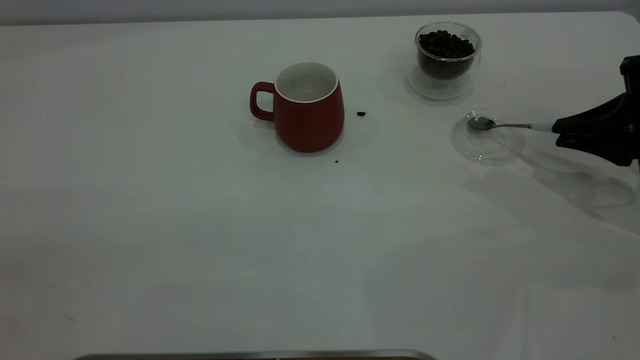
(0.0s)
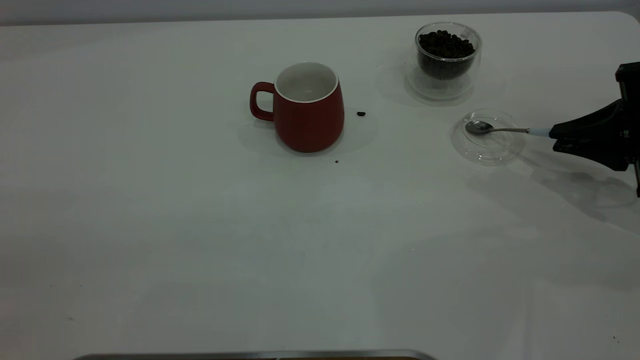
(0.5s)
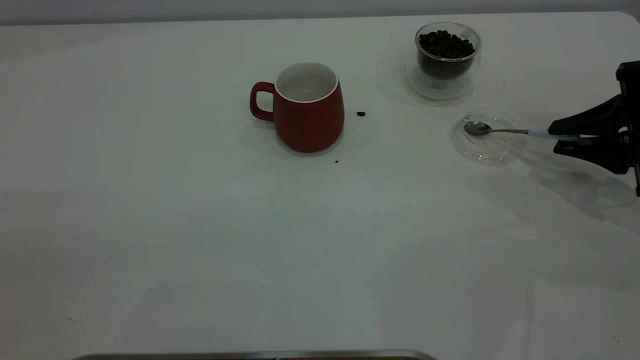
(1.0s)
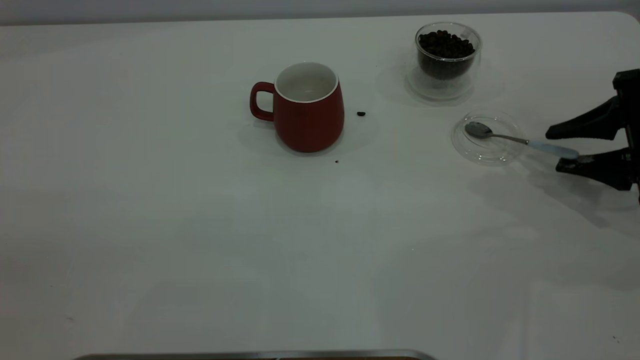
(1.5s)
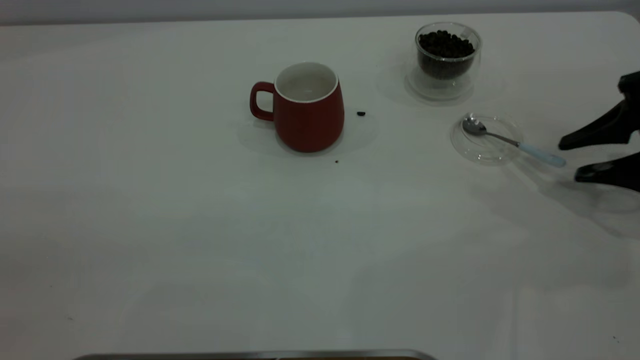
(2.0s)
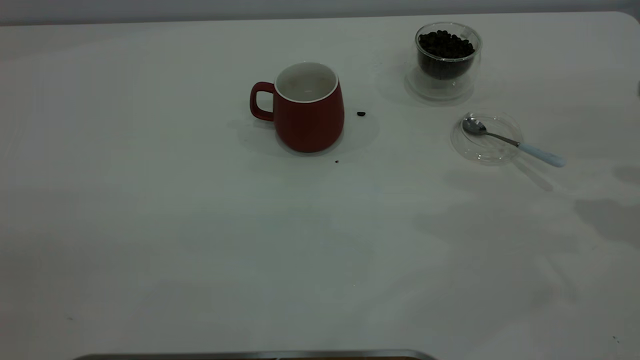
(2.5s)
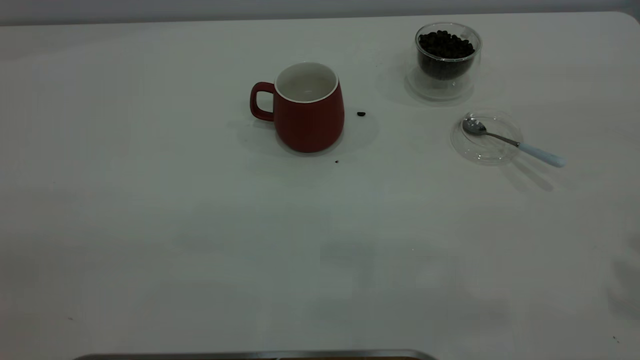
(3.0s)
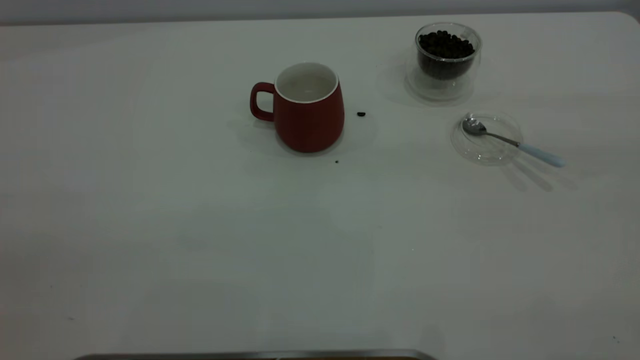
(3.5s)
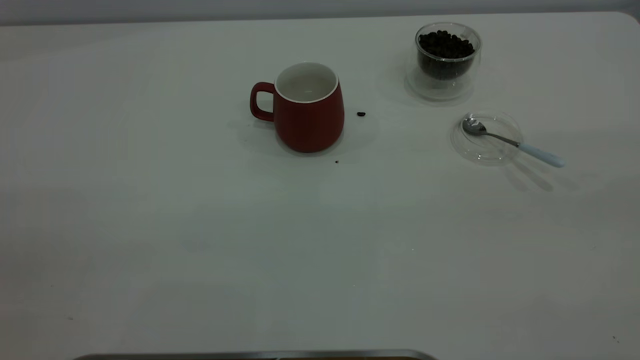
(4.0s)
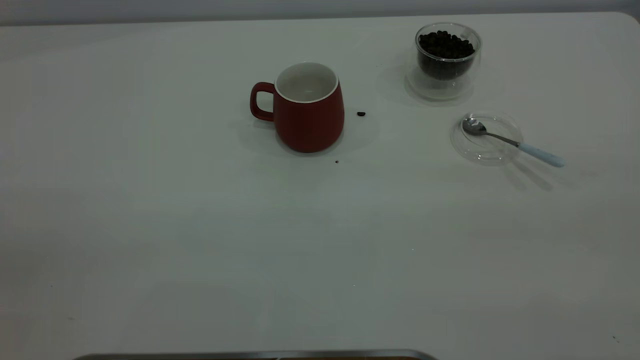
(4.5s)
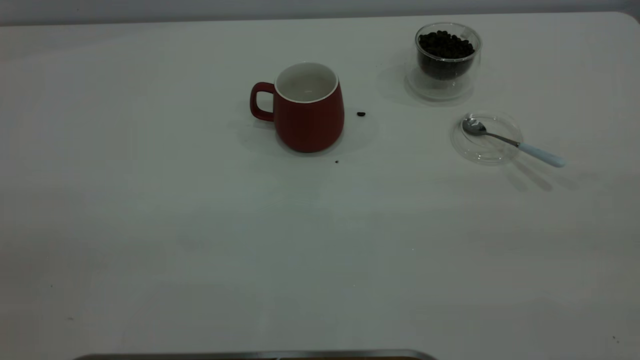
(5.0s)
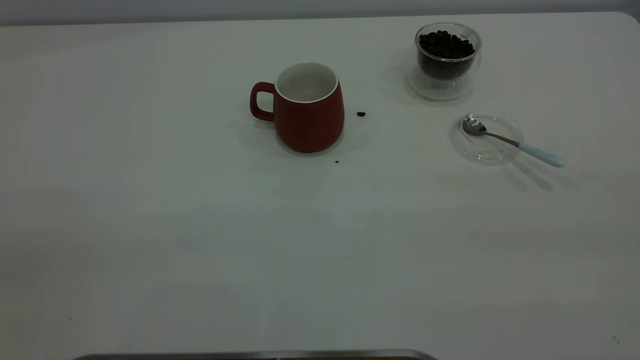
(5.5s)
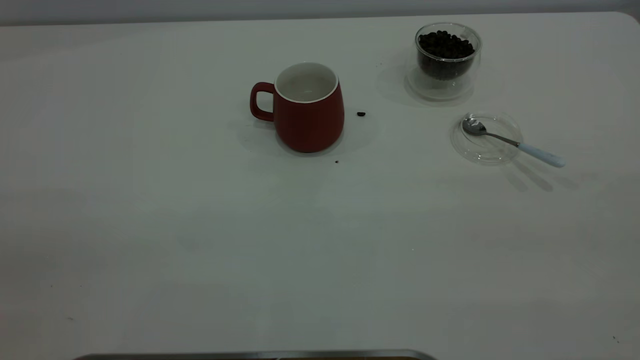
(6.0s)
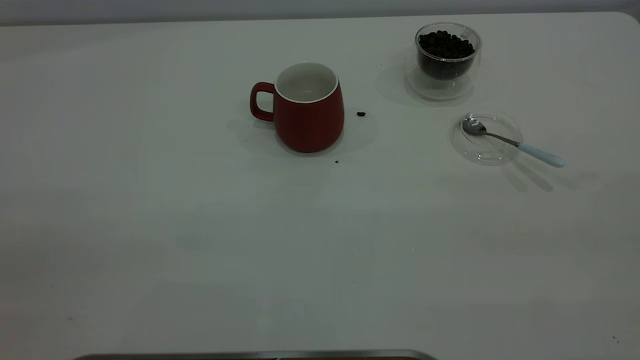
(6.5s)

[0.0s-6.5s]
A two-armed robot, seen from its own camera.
Task of the whole recording: the left gripper place the red cup in the center of the table, the right gripper take the blue spoon from the cup lid and scoop out the coffee beans from the coffee cup and put them into the red cup, the right gripper put the spoon back into the cup lid.
Step, 0.0s to 2.0s: Place the spoon back in its original place.
0.0s to 2.0s: The right gripper opens.
2.0s to 4.5s: The right gripper moves backward and upward, about 40 cm, and closes.
